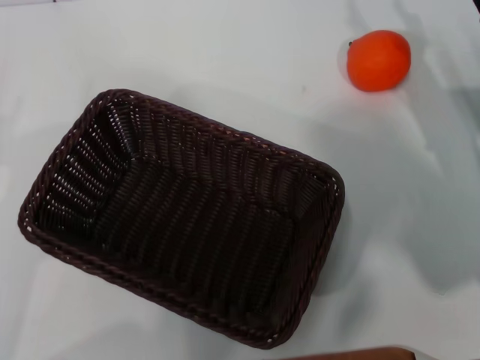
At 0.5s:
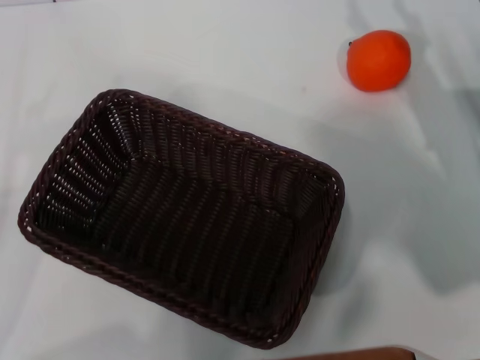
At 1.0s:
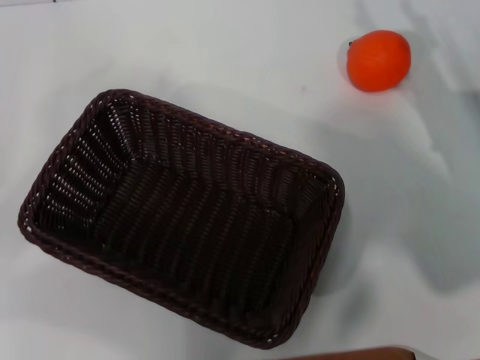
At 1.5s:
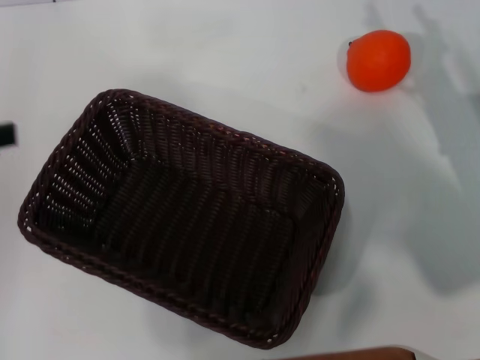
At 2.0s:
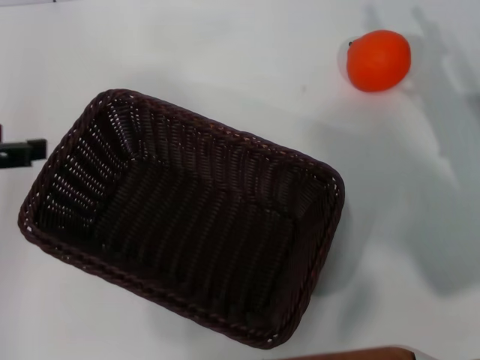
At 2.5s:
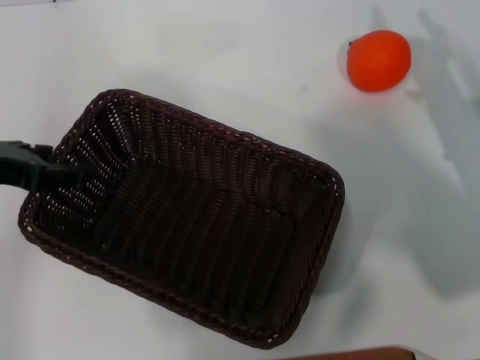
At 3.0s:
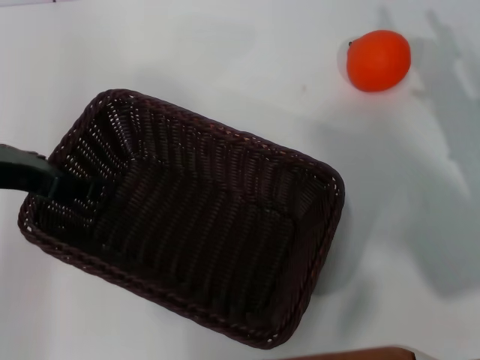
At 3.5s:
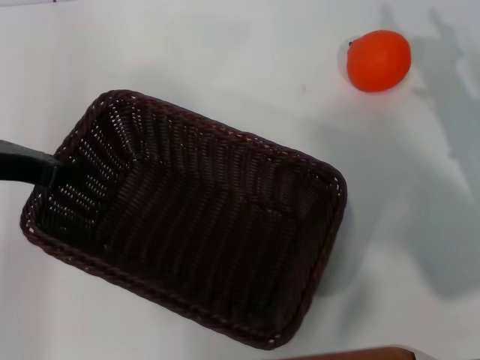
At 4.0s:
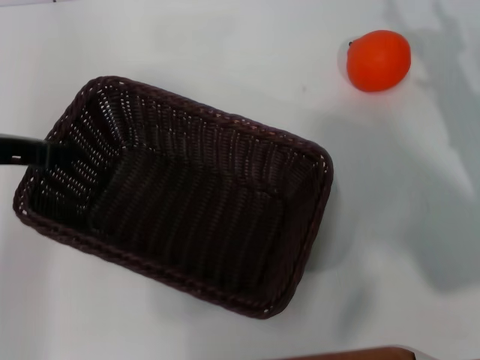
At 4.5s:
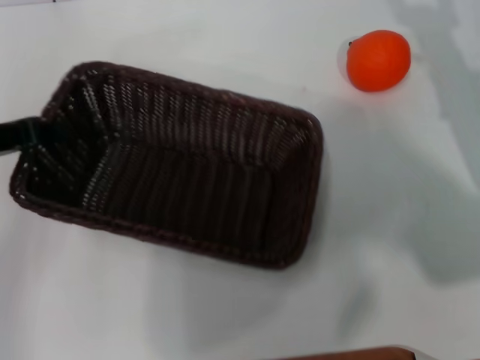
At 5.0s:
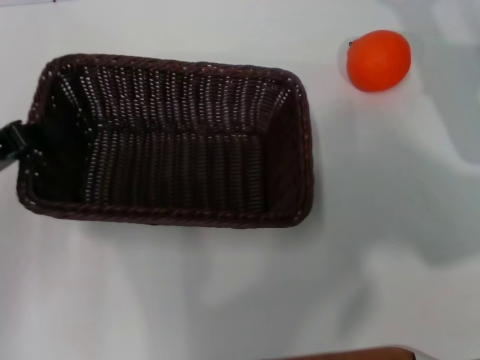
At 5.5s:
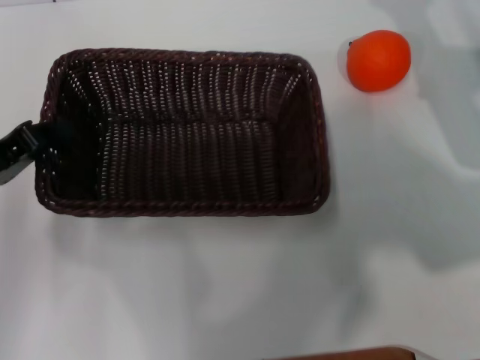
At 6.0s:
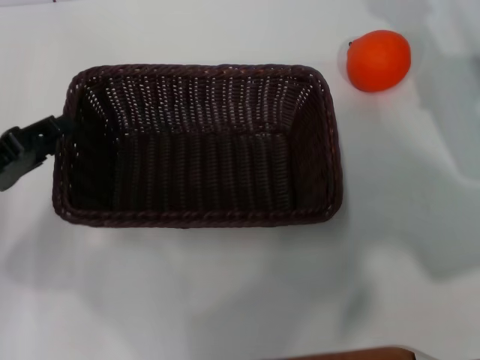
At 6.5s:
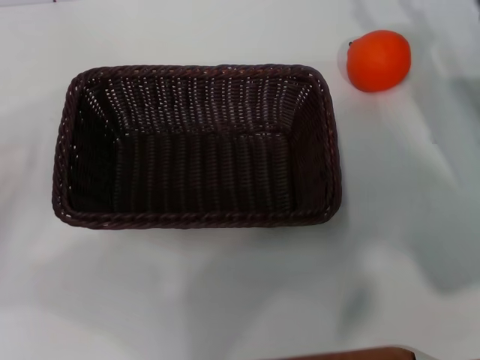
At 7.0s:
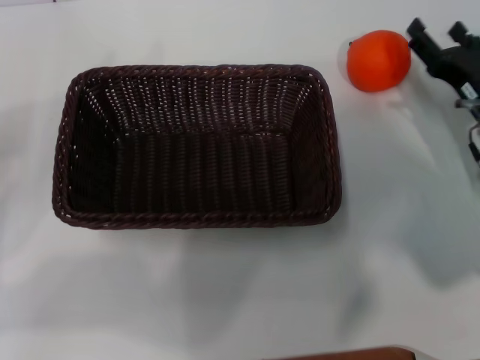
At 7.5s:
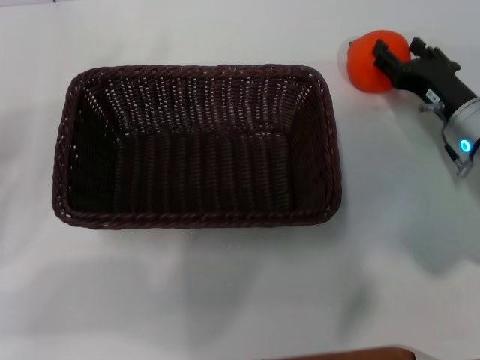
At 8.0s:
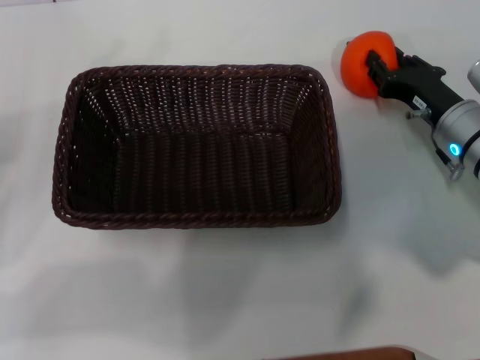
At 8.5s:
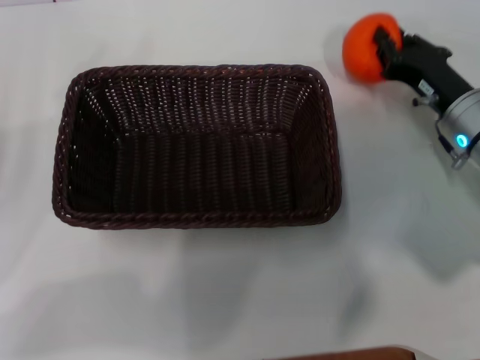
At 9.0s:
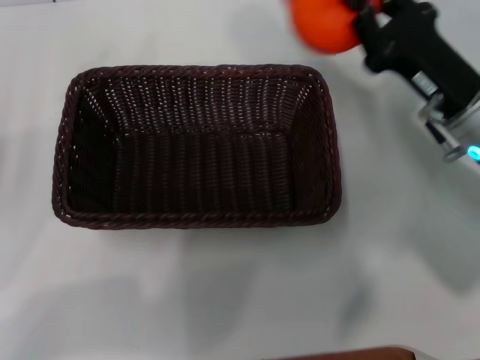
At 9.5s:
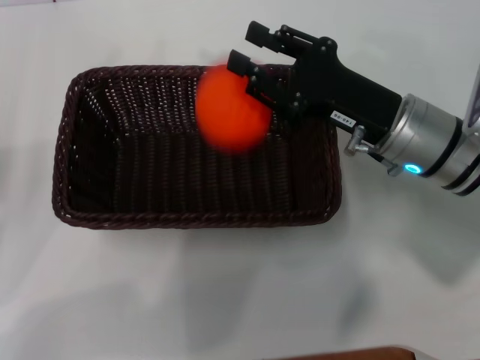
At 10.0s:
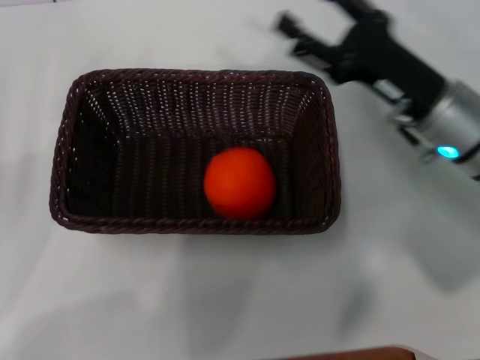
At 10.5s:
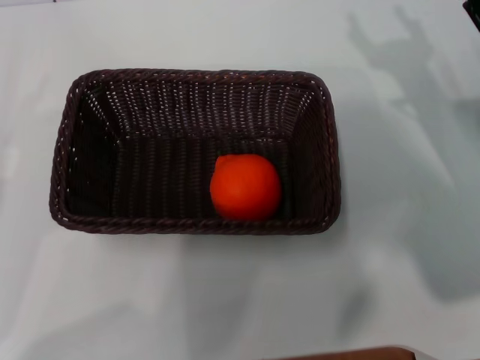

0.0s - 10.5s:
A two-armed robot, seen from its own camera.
Task of the whole recording: the left gripper pick up the black basket and place it horizontally in the middle of the table, the right gripper pick up the orange and place it into the black basket.
Step, 0.0s - 3.5s: Pick up the dark basket with the left gripper.
Step, 4.0s - 5.5s: Place the dark basket in the center of view with the left gripper.
Step, 6.5s - 8.5s: Pick up the orange with the right gripper.
Step, 9.0s - 9.5s: Place the orange into the dark basket with the right gripper.
0.0s - 2.0s: The left gripper heads upward and forward, covering some 20 cm.
2.0s - 4.0s: The left gripper moves roughly 5 cm, and closes.
4.0s - 6.5s: The left gripper goes about 10 cm to the left and backward, and opens up.
6.5s - 8.5s: The right gripper moves some 5 cm, and closes its fingers.
8.5s - 10.5s: The left gripper moves roughly 5 cm; the right gripper heads backward, covering approximately 5 cm, goes to the left and returns, some 10 cm each way, and opens up.
